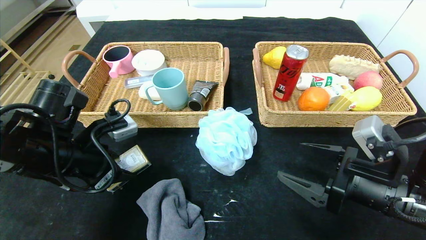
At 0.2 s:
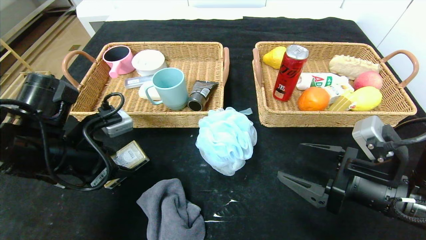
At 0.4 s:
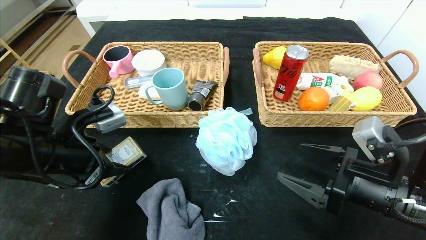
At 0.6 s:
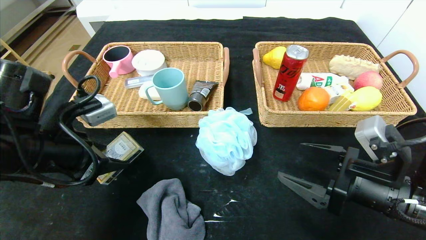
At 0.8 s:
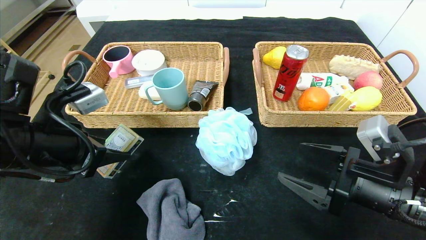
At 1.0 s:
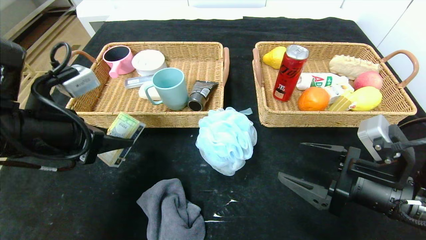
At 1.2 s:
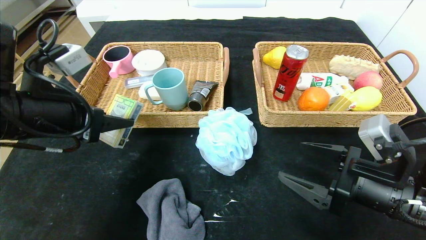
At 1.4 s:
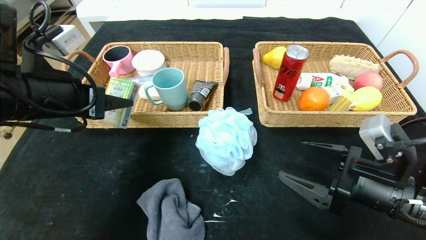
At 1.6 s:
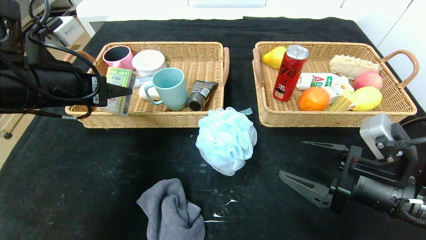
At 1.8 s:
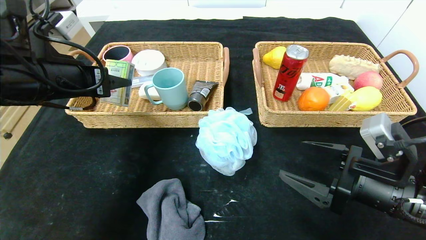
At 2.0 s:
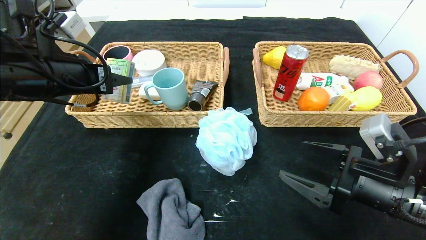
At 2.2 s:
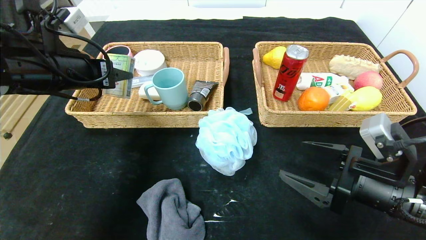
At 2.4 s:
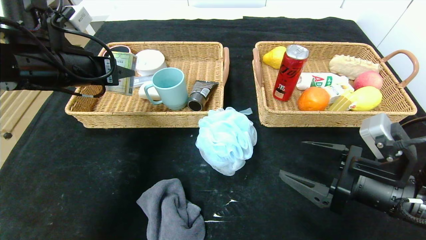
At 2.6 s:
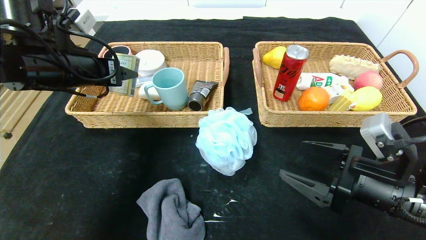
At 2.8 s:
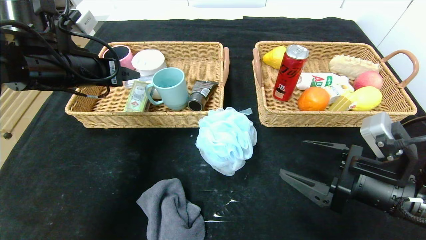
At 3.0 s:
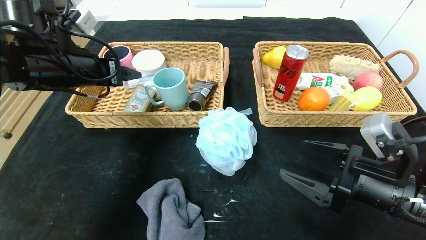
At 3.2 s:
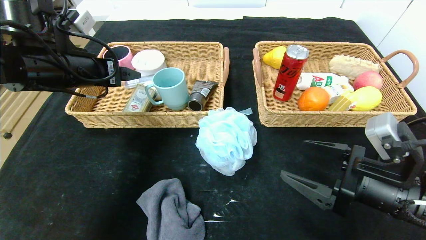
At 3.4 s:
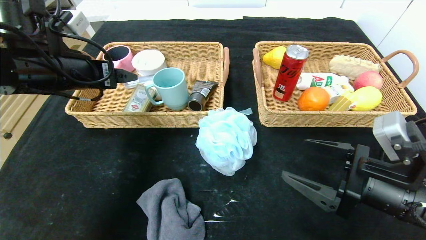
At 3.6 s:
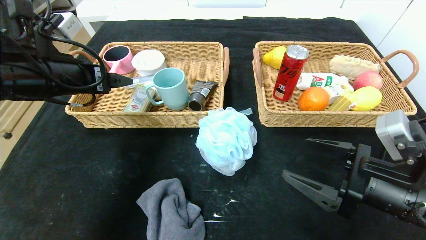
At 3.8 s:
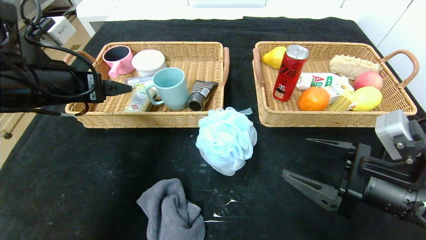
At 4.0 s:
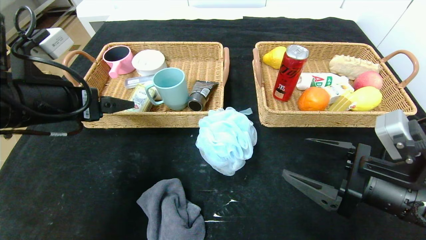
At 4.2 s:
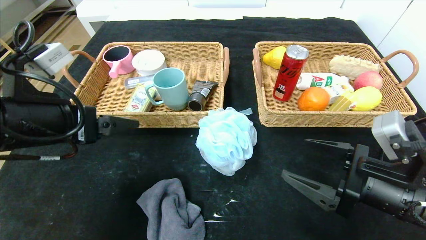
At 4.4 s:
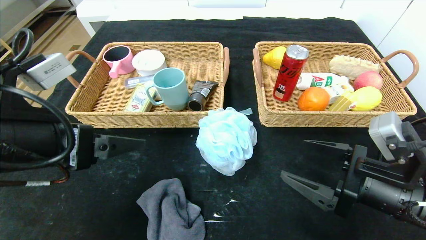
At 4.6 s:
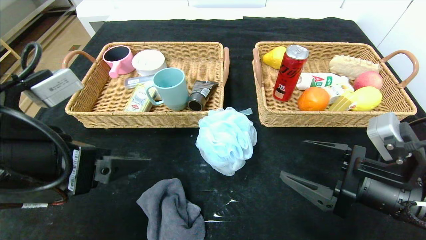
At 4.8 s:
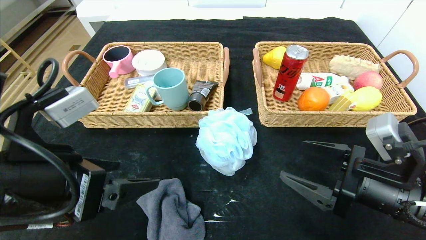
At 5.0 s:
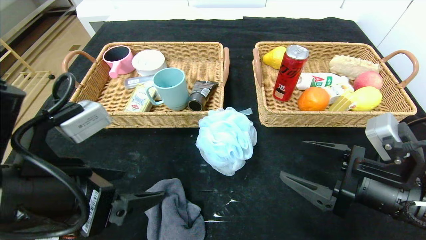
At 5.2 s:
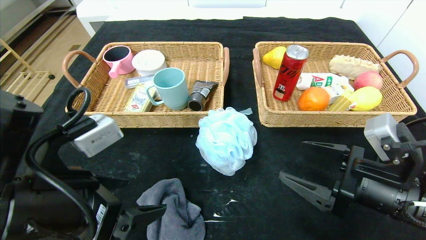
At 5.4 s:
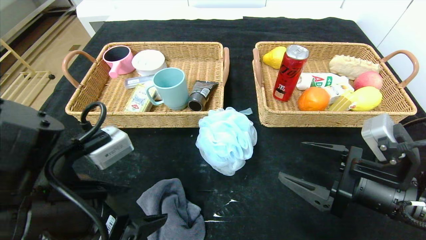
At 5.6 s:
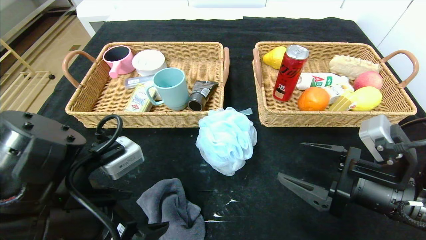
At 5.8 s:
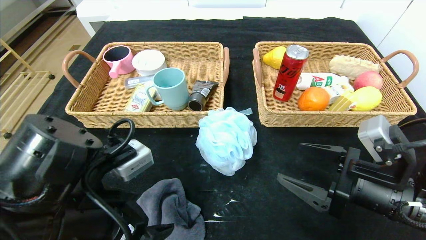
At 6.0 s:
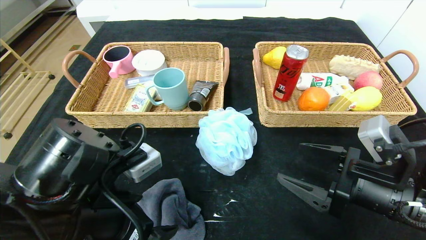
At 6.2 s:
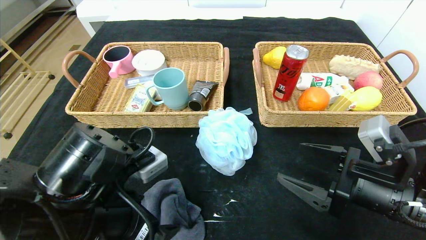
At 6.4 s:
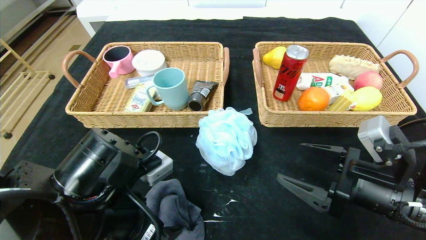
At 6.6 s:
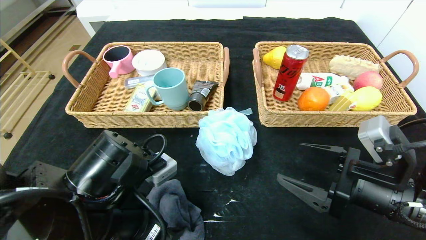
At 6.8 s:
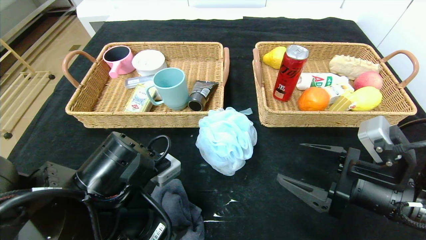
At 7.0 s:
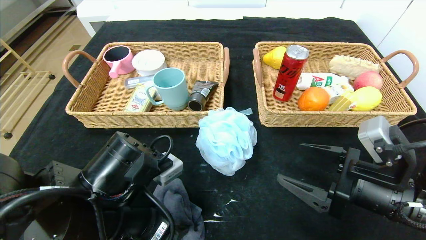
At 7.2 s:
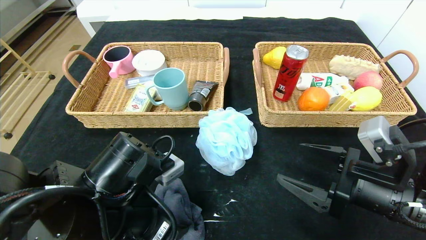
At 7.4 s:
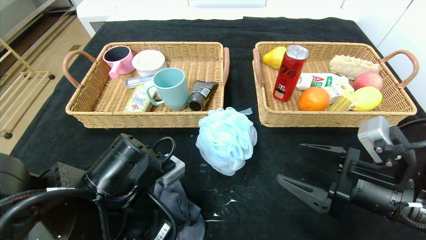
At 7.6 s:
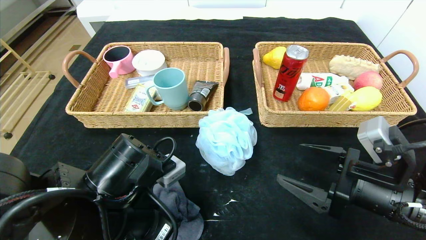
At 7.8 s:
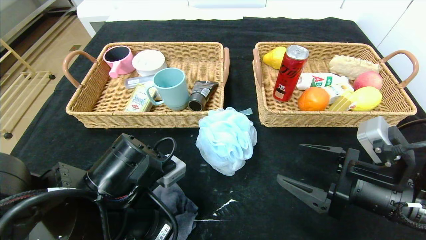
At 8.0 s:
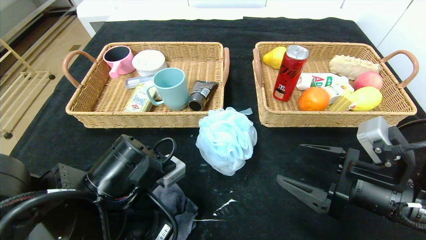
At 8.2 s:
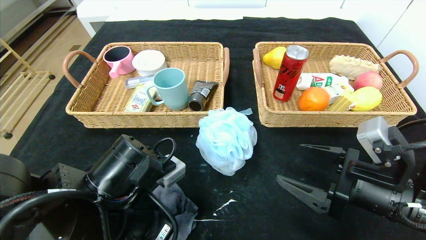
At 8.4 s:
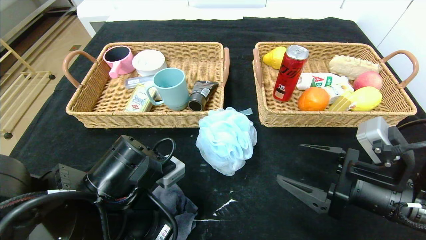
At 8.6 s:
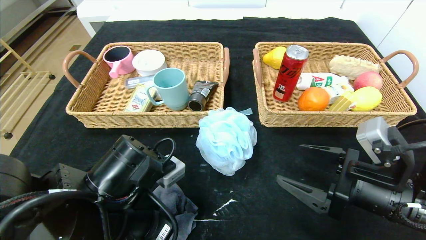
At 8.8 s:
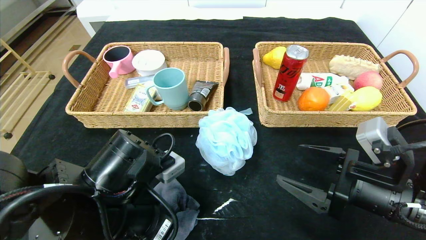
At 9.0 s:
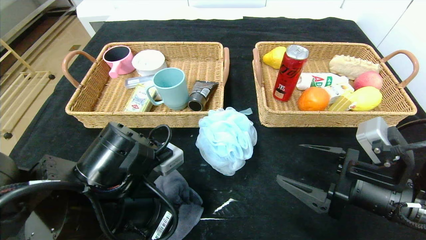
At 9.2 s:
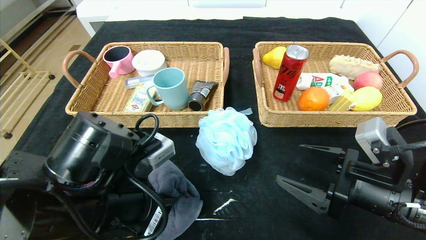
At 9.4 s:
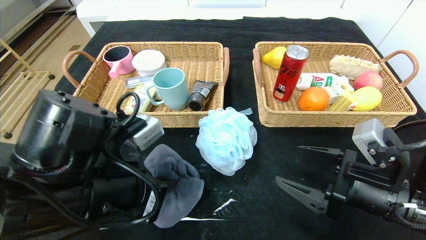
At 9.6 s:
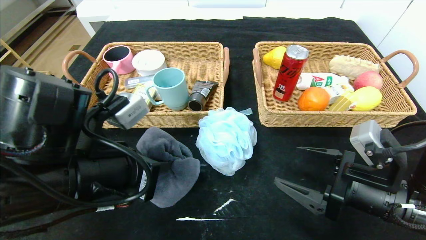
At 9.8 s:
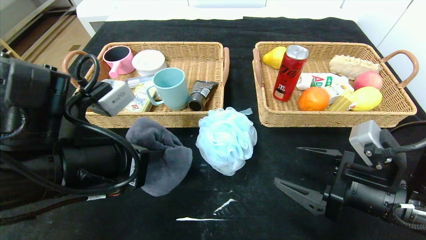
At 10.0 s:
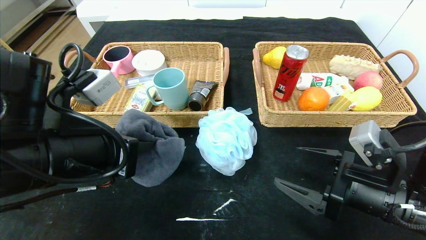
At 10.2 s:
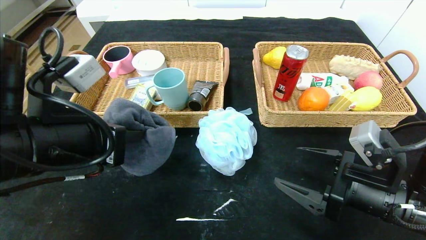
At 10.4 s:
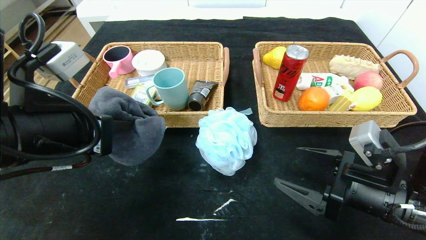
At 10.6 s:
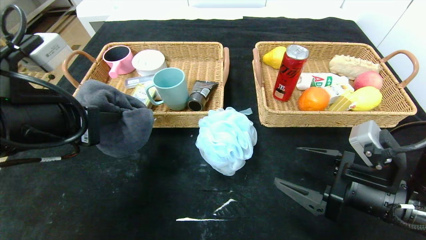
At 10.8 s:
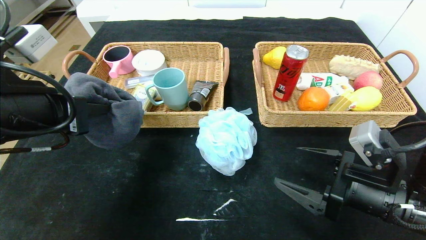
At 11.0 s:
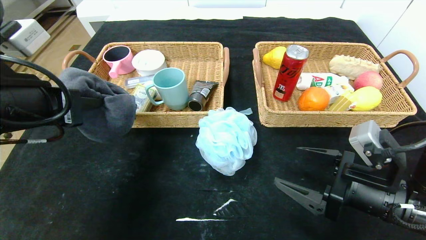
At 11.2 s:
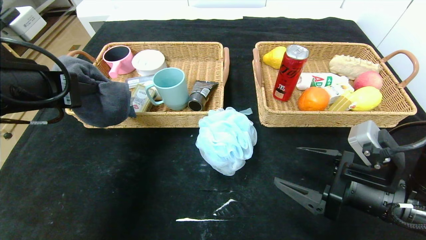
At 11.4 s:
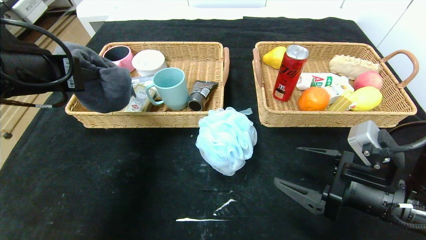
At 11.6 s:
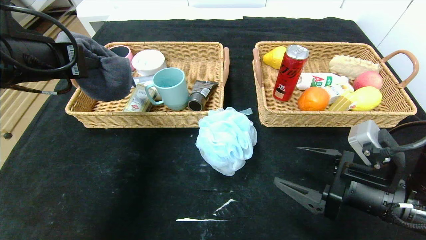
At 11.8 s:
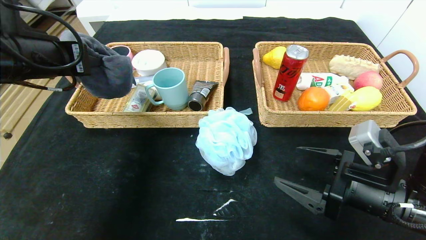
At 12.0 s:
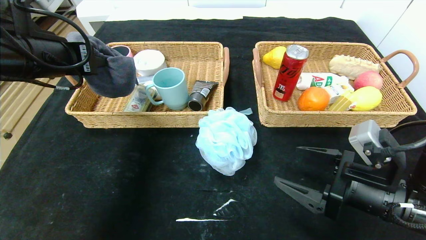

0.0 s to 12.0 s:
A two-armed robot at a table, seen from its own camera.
Step, 0.0 to 2.8 s: Grasp the playing cards and put it in the left basket.
0.0 to 1.6 s: The left gripper is displaced upward by roughly 10 cm.
1.6 to 3.0 s: The left gripper heads forward, covering about 5 cm.
3.0 to 4.4 s: The left gripper goes about 15 cm backward.
4.4 to 6.0 s: The left gripper moves downward and to the right, about 10 cm.
6.0 to 7.6 s: The left gripper closes up.
7.6 to 9.0 s: The left gripper closes up.
9.0 to 10.4 s: The left gripper shifts roughly 10 cm upward and to the left.
10.4 to 12.0 s: The left gripper travels forward, to the left and upward by some 15 cm.

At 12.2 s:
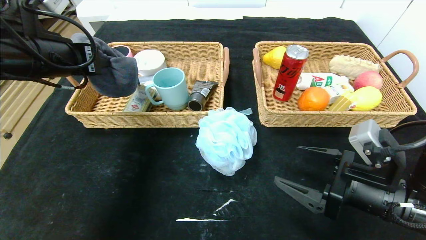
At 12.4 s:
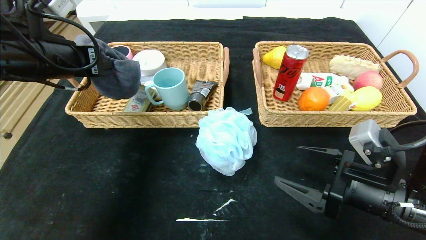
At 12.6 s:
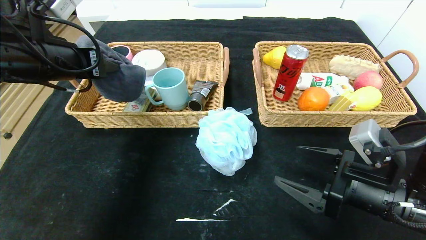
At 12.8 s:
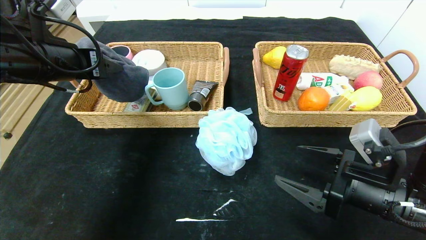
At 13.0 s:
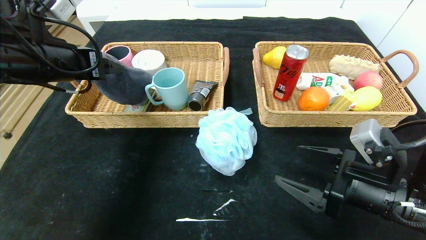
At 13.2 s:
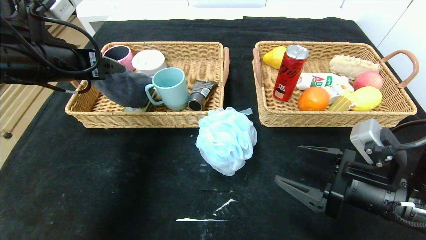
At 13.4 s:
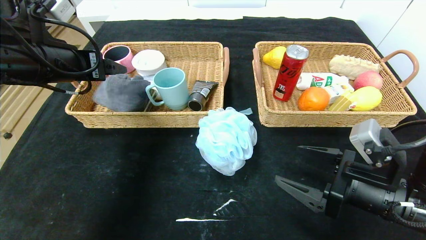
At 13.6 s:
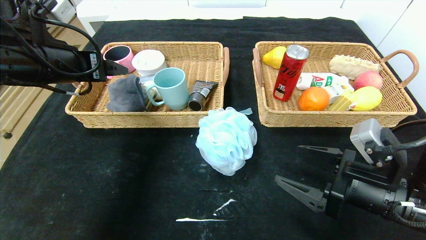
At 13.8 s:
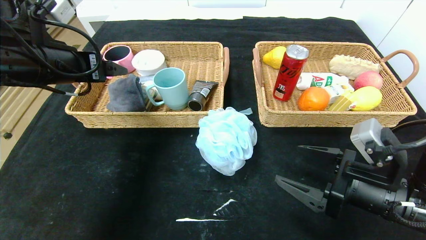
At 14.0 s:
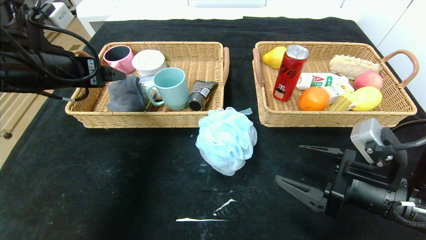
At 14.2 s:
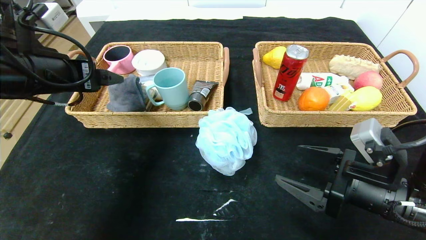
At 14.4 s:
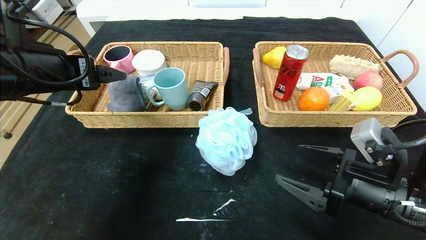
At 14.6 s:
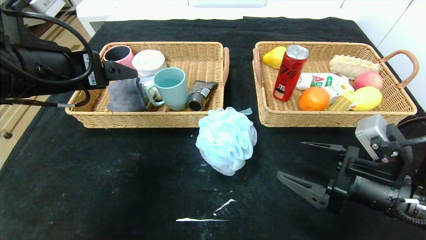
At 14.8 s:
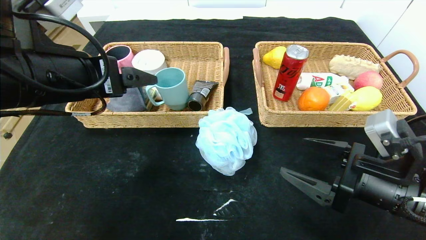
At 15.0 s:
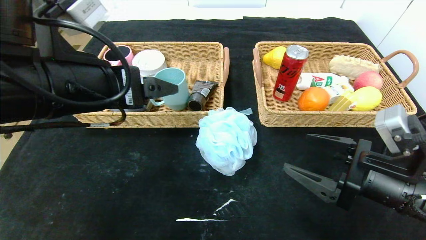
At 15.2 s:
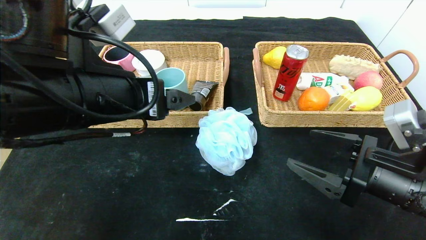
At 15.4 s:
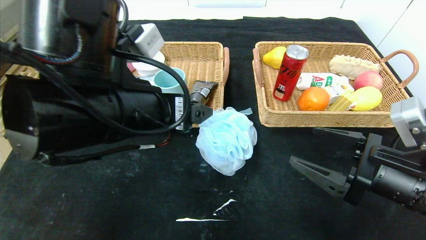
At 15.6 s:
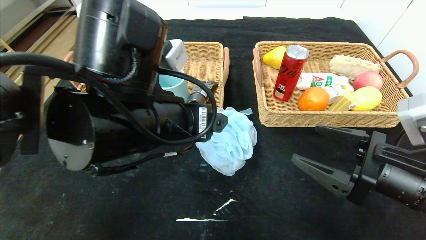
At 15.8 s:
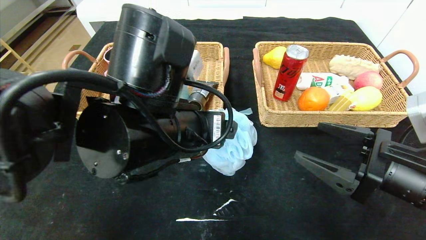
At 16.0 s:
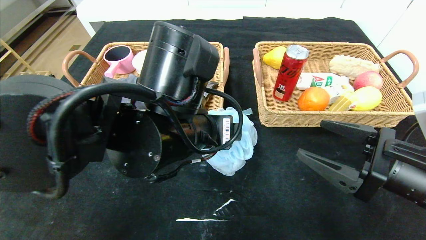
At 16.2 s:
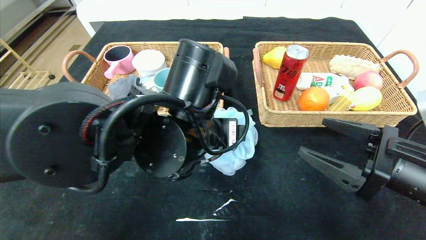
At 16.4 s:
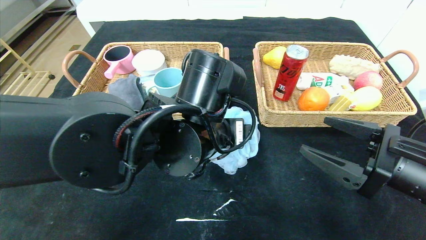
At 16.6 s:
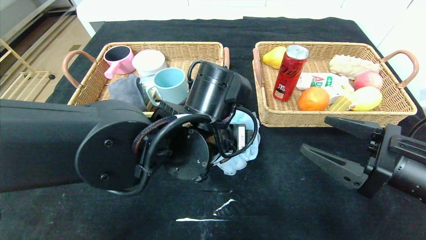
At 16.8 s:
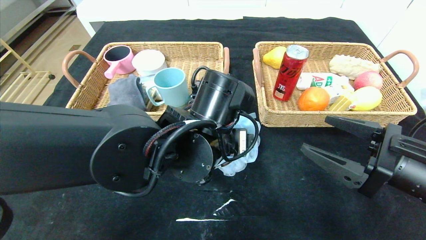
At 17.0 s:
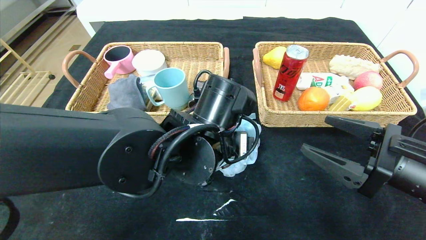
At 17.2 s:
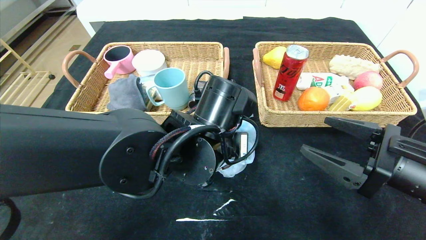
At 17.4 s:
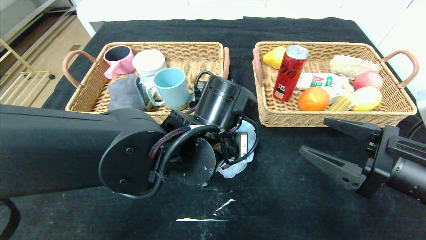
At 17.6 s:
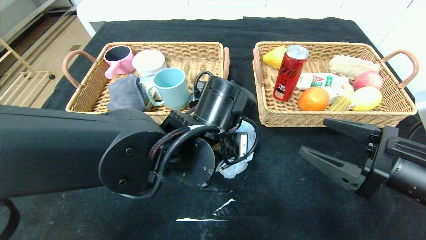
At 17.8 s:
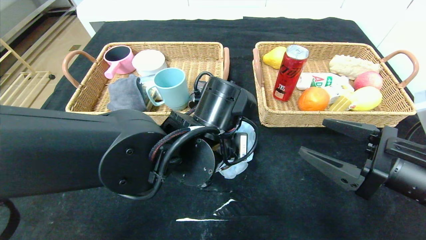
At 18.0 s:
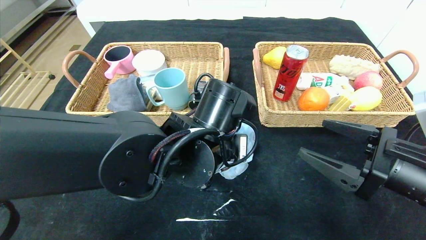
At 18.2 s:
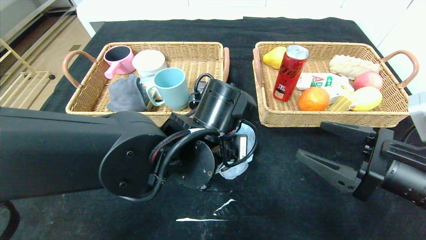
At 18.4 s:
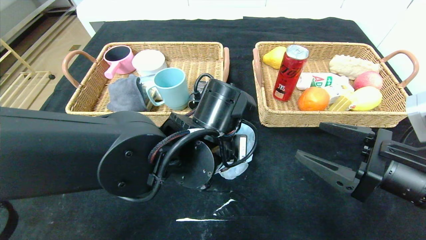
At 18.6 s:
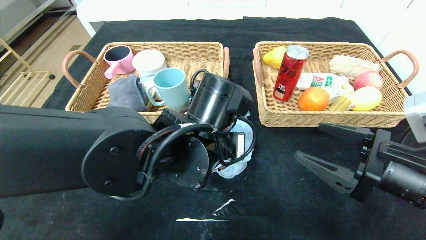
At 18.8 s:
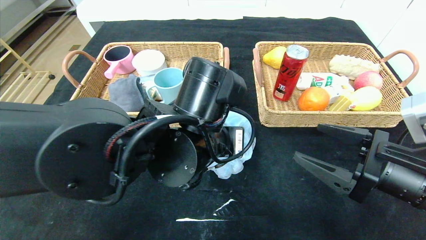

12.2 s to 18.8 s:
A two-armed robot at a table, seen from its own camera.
12.2 to 13.8 s: The left gripper opens up.
13.8 to 15.4 s: The left gripper moves to the right and backward, roughly 20 cm.
15.4 to 17.2 s: The left gripper shifts about 10 cm to the right and downward, and closes up.
17.2 to 18.8 s: The left gripper closes its fingers.
